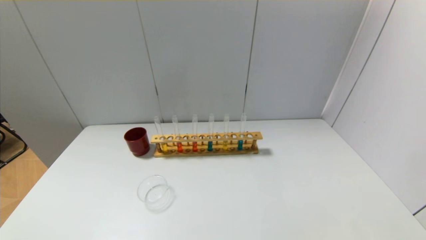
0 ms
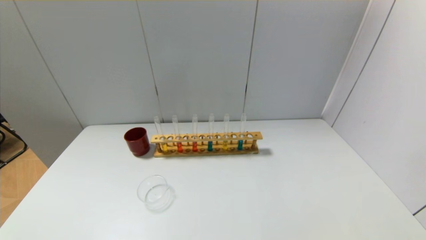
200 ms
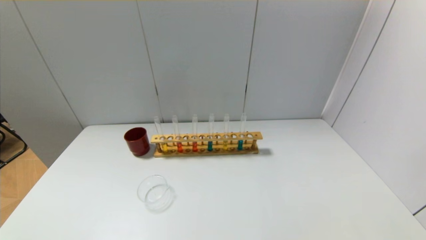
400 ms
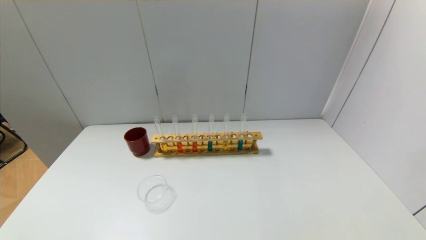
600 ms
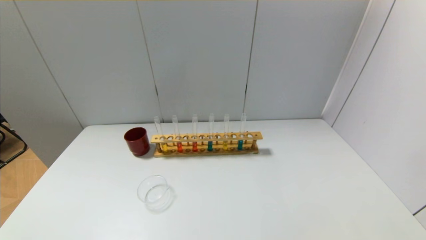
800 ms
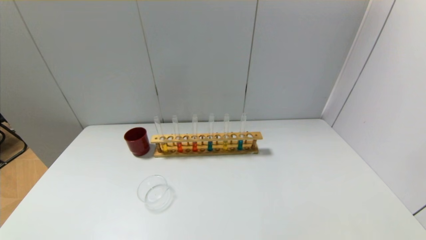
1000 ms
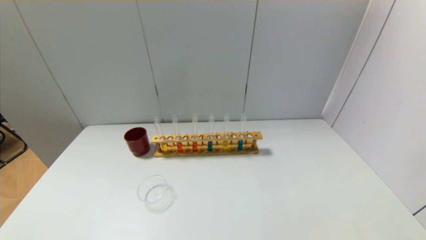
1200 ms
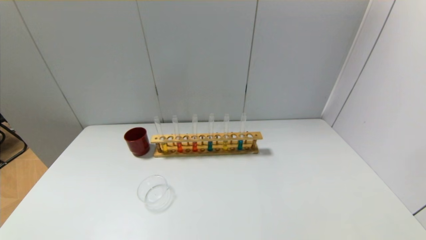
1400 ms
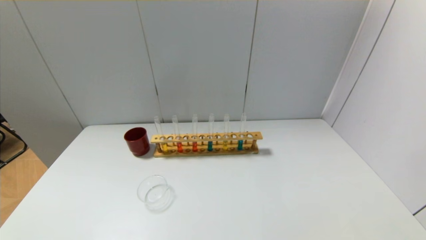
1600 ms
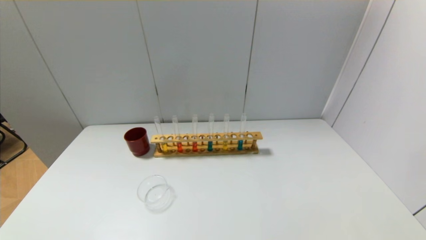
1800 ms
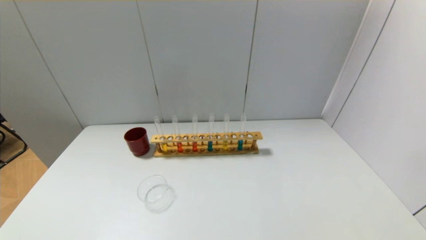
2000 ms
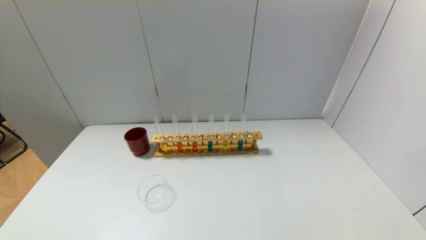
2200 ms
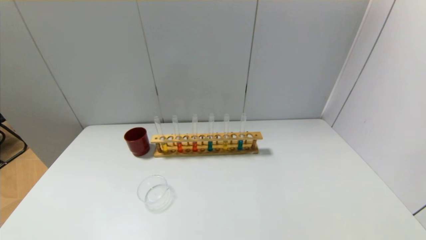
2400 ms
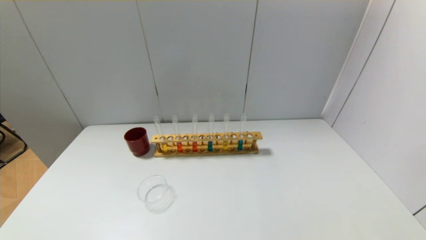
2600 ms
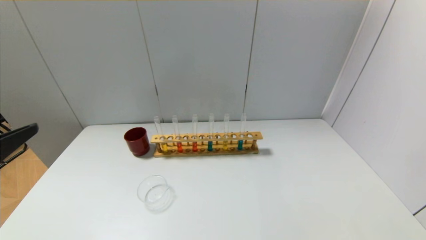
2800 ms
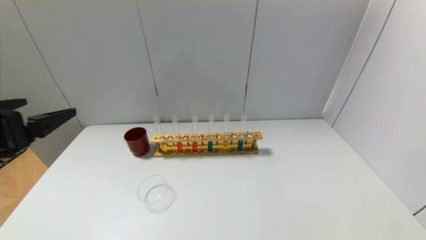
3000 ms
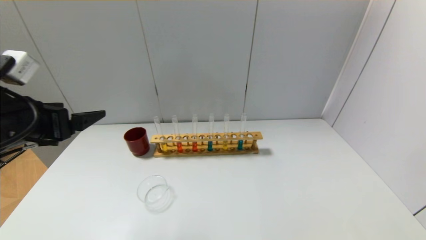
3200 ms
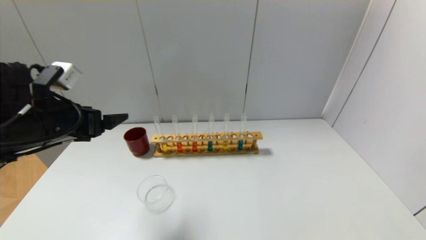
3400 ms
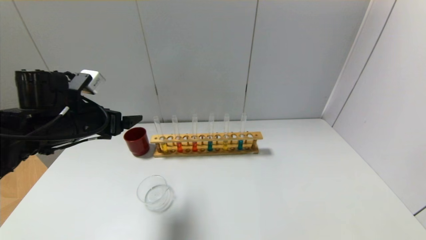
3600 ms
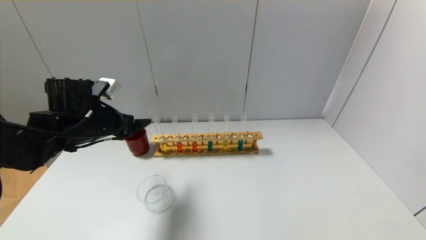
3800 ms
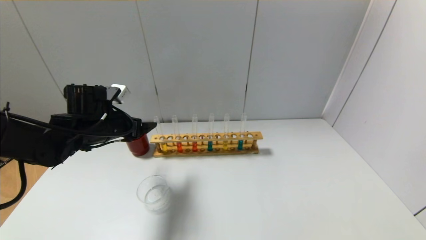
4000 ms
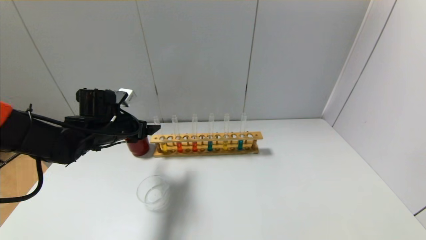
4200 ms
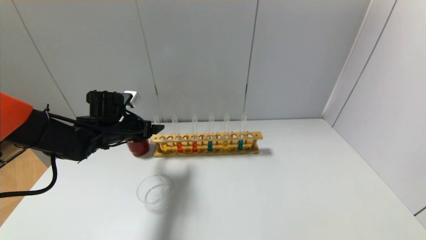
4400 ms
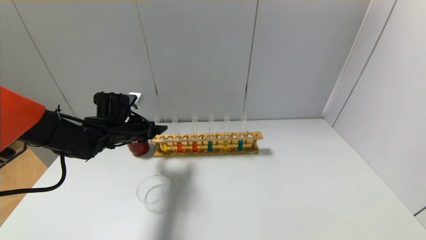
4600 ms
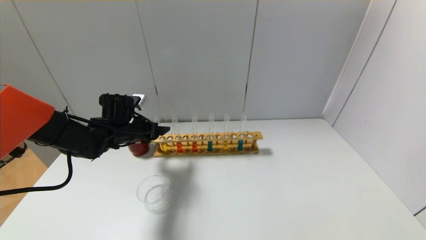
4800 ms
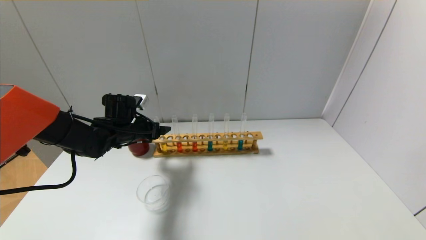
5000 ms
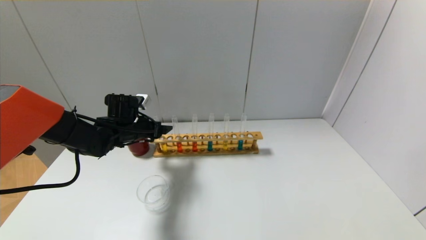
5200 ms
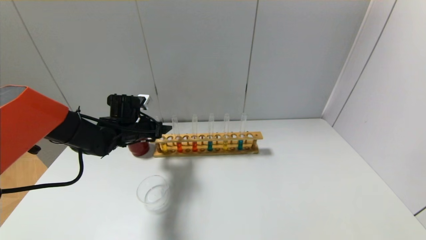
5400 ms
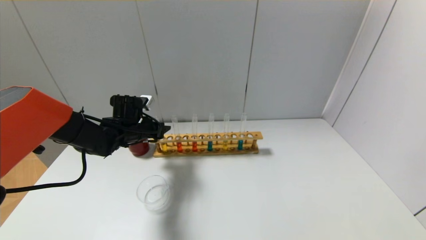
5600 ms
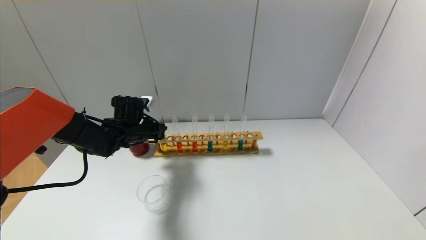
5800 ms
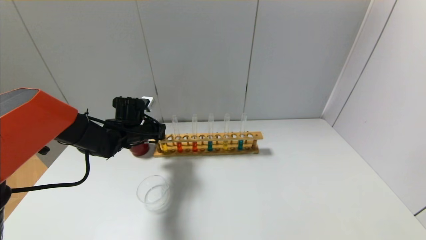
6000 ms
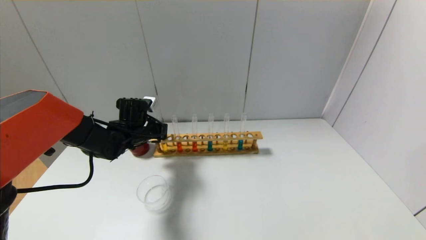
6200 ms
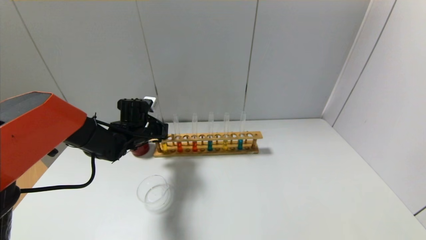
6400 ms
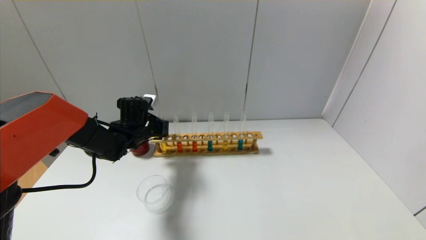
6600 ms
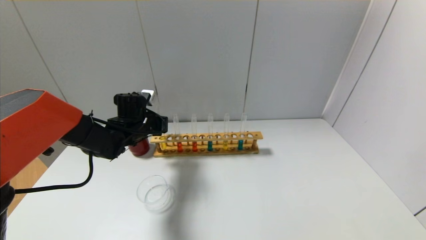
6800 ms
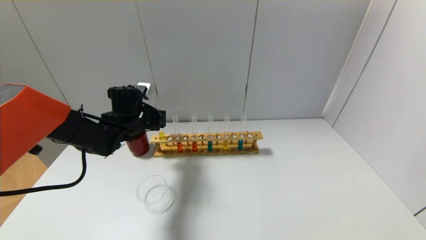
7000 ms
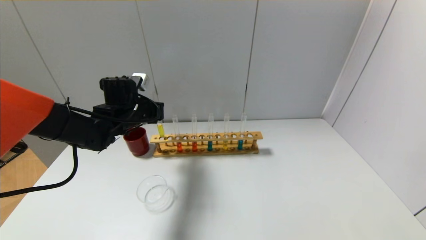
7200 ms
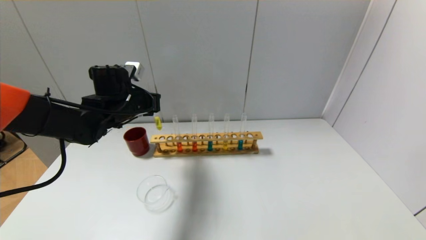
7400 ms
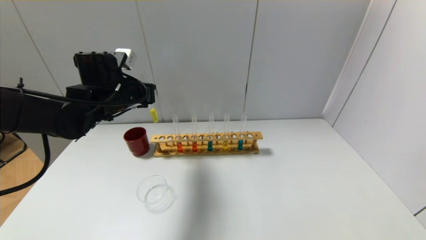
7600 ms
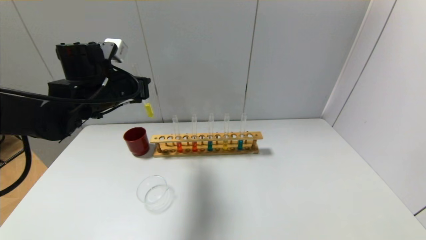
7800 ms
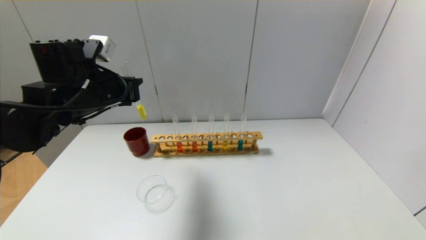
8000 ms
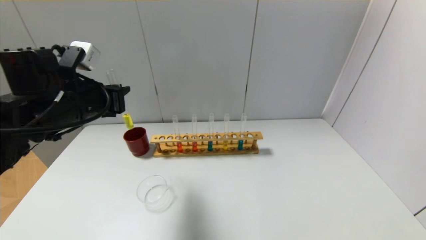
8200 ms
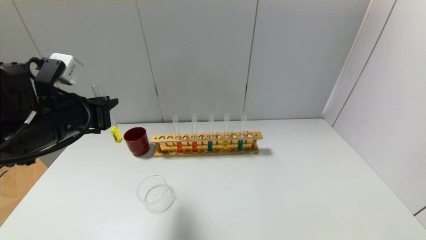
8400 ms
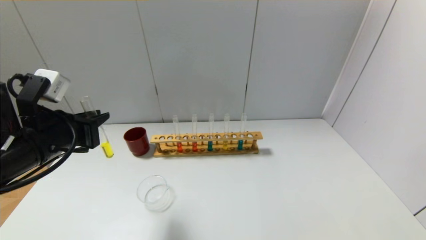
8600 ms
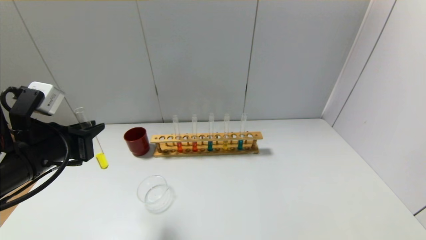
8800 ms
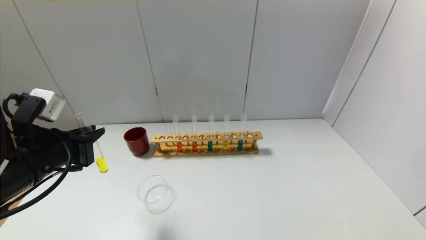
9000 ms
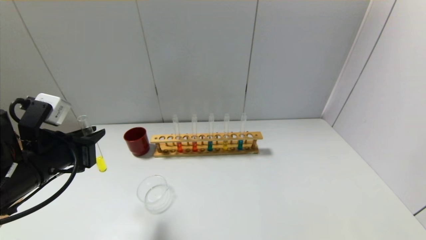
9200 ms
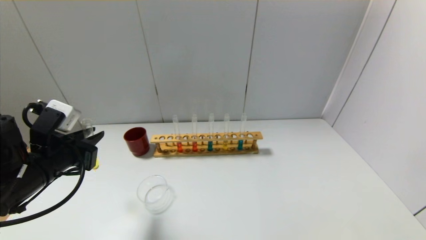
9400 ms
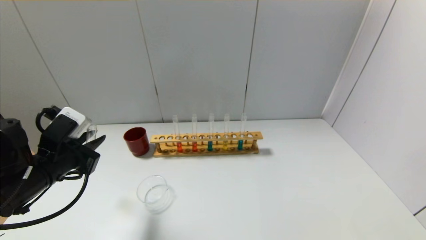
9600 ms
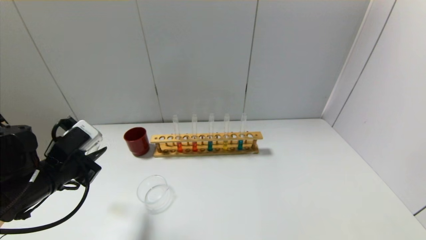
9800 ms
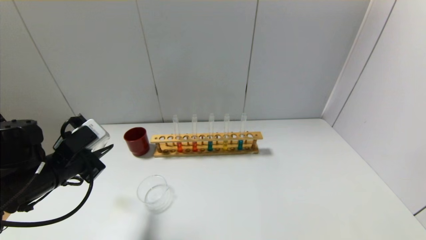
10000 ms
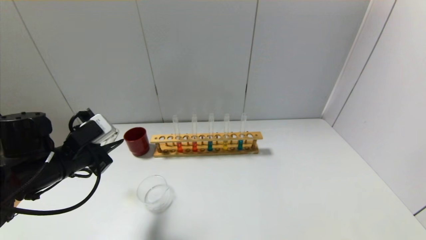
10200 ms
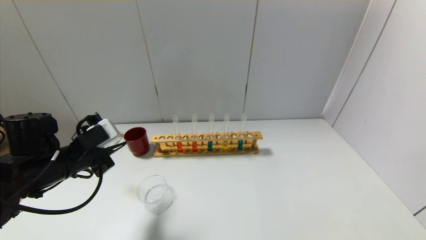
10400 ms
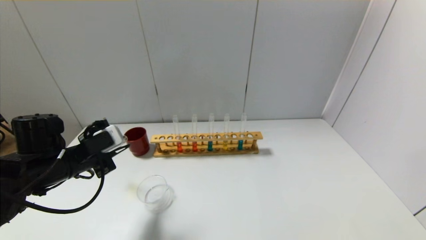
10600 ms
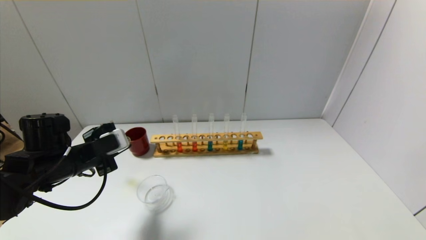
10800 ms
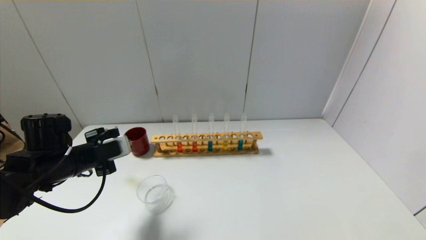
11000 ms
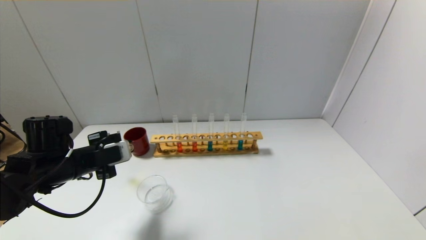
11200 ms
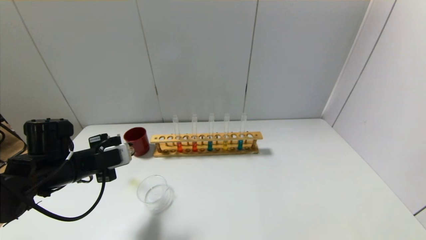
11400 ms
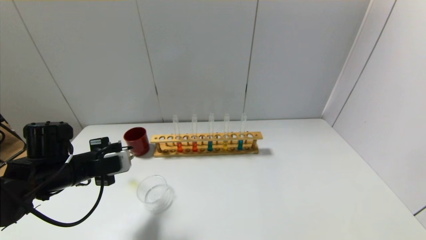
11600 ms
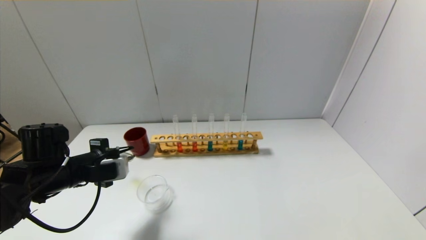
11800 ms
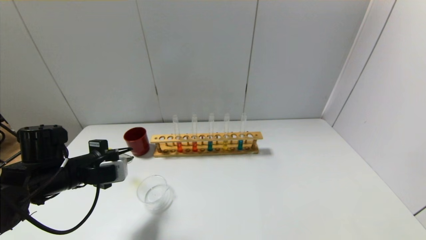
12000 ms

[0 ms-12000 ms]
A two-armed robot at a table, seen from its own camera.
Step, 0 ms to 5800 ms: Grasp the yellow reagent with the left gripper.
0 ms to 1600 ms: Neither gripper changes place.
1600 ms to 3000 ms: The left gripper heads upward and forward, covering about 25 cm.
3000 ms to 4400 ms: The left gripper shifts roughly 25 cm forward and downward.
4400 ms to 6000 ms: The left gripper changes place by some 5 cm, and closes its fingers.
6000 ms to 7600 ms: The left gripper travels upward by some 15 cm.
7600 ms to 9000 ms: The left gripper is displaced backward by roughly 15 cm.
9000 ms to 10400 ms: The left gripper shifts some 5 cm forward.

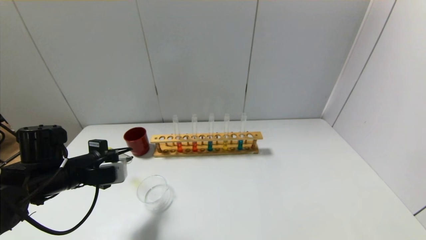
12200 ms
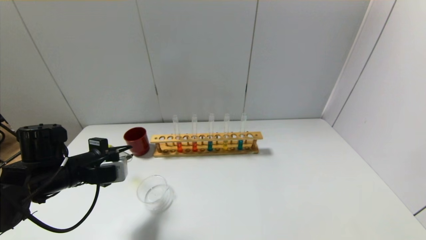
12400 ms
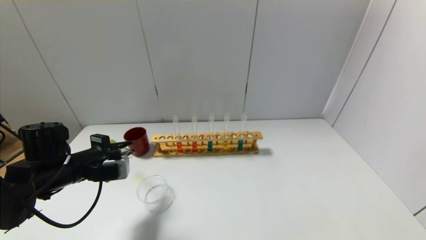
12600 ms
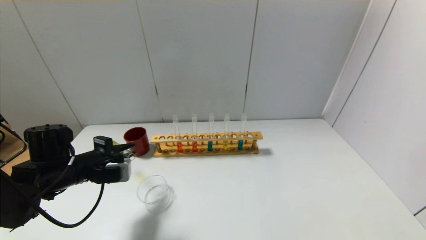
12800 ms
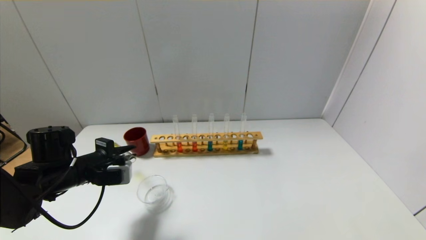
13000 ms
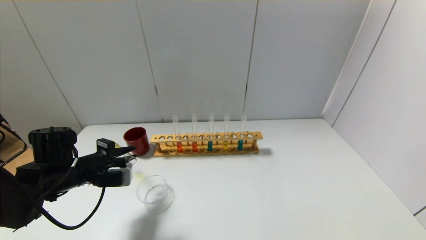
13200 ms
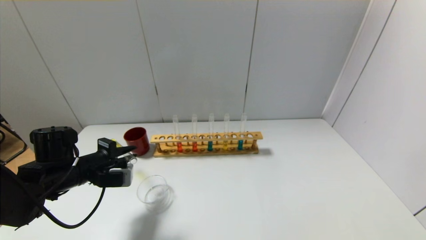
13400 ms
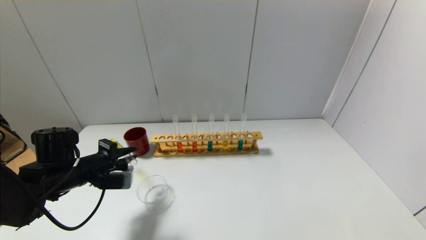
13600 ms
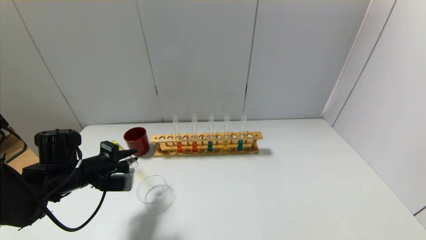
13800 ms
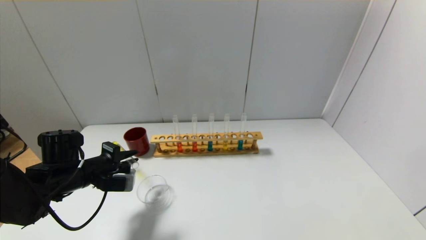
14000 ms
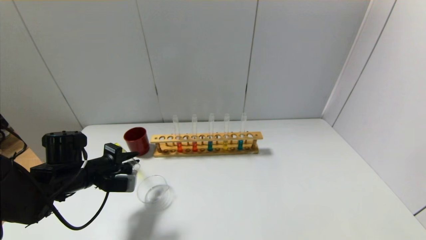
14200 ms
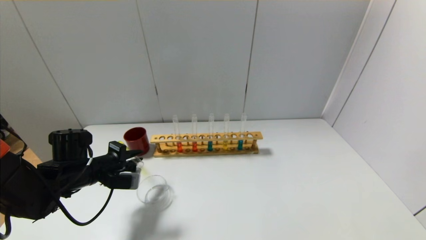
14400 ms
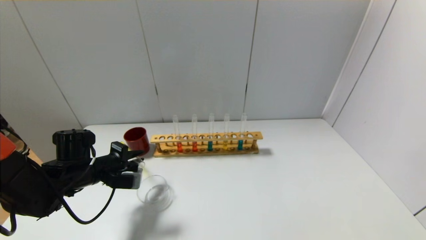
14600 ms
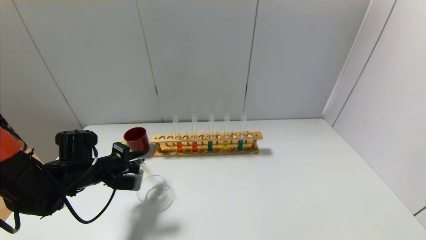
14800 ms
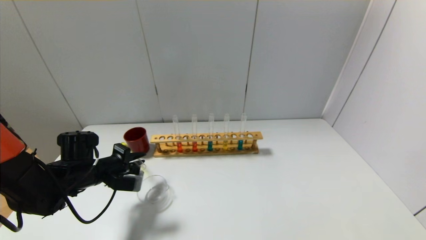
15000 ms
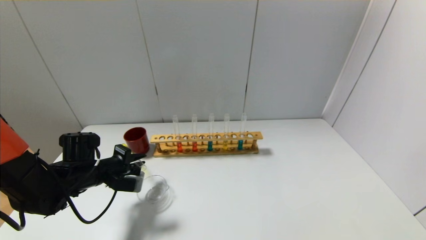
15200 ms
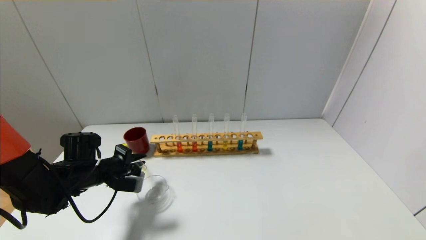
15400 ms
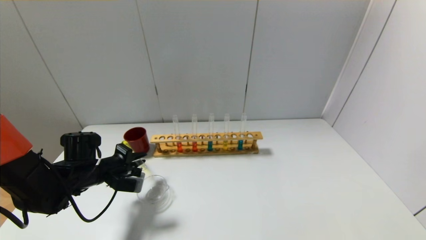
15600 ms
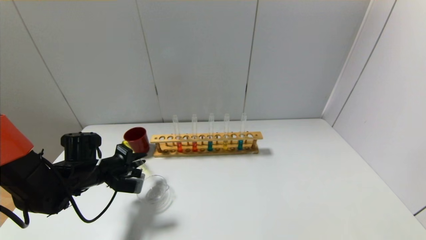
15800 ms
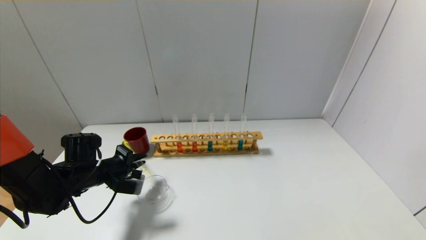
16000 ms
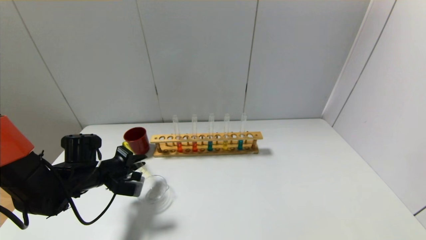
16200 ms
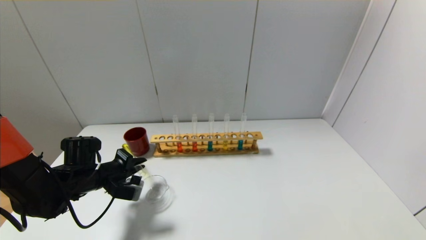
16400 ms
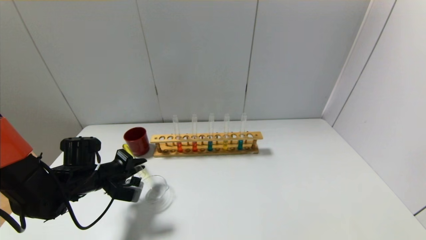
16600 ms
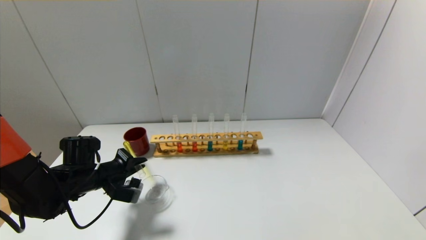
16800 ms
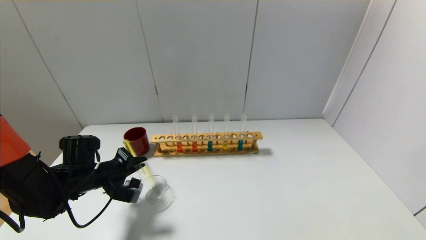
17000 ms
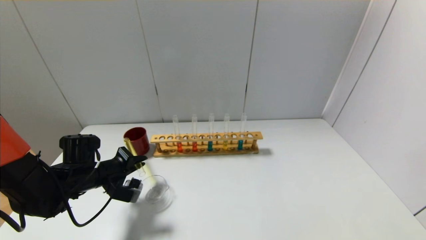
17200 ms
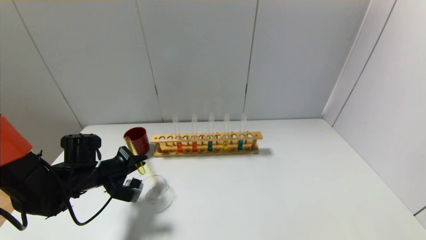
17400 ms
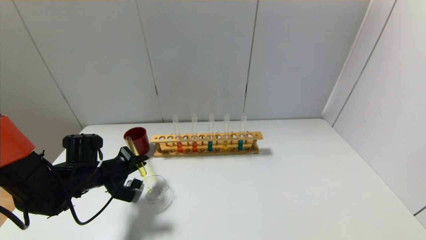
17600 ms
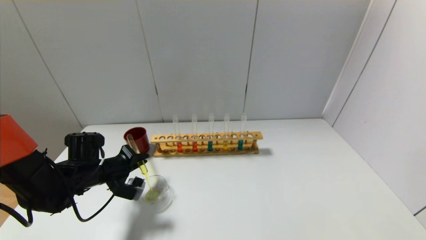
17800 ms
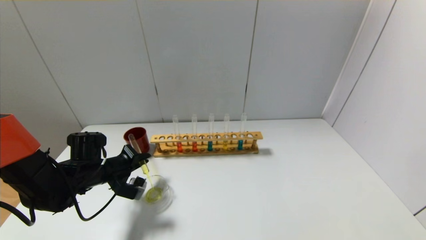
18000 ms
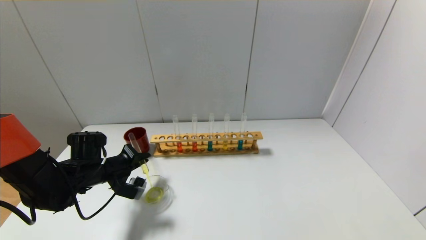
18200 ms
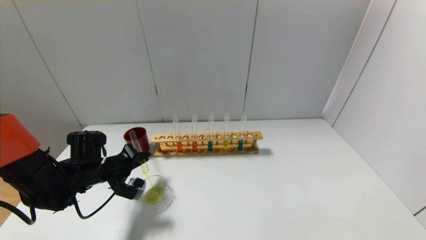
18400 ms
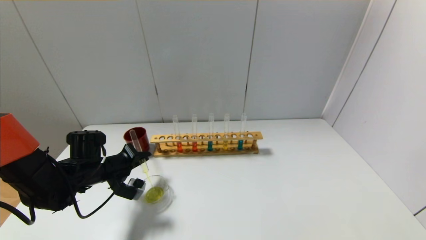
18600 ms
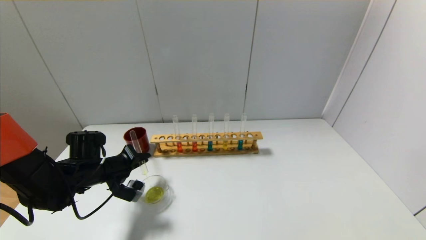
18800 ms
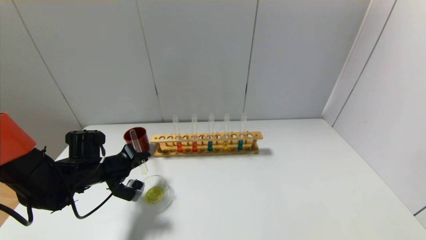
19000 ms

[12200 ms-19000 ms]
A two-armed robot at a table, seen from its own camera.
12200 ms to 13600 ms: There are only small adjustments of the grippers.
13600 ms to 16200 ms: The grippers make only small movements.
16200 ms to 19000 ms: The grippers stay close to where they were, moving slightly.
